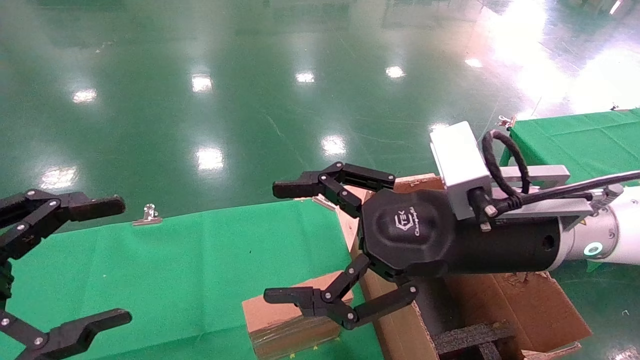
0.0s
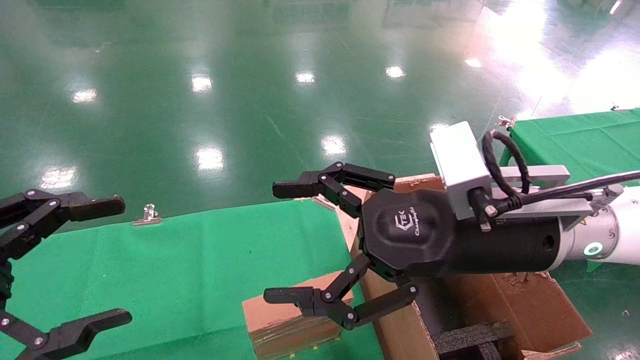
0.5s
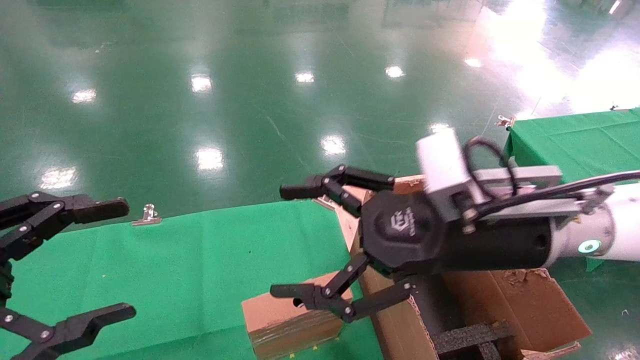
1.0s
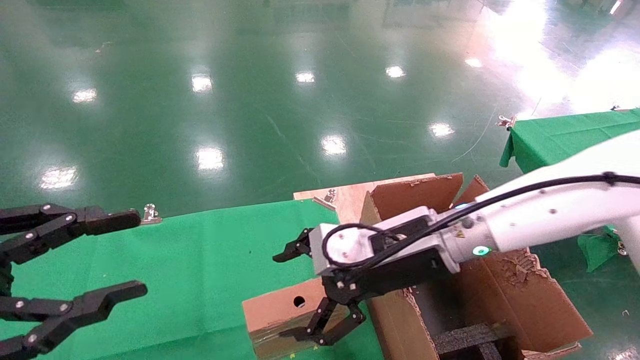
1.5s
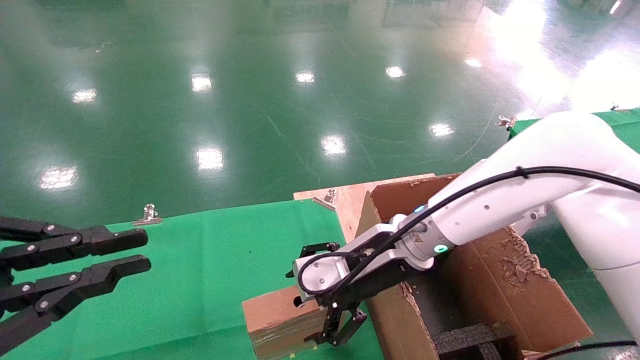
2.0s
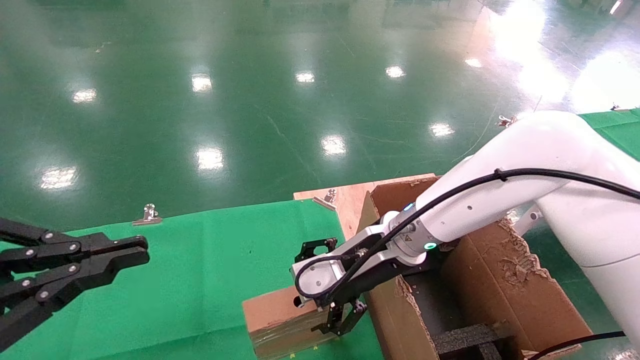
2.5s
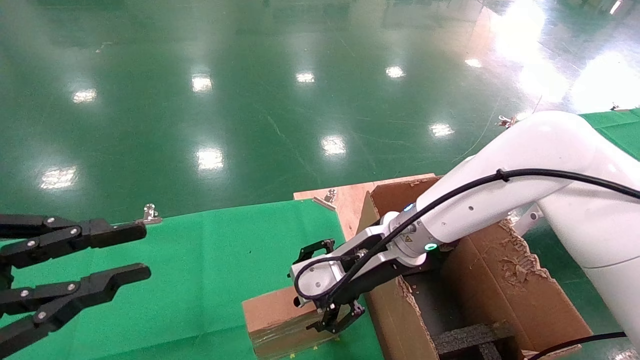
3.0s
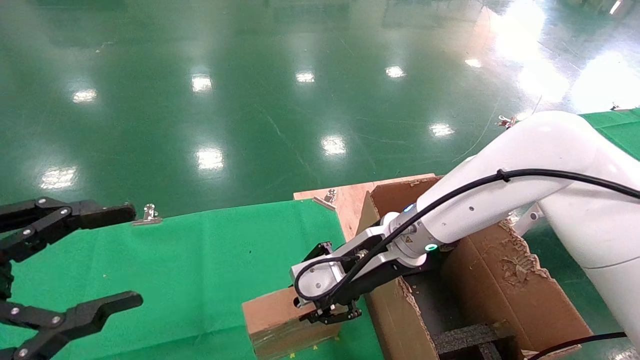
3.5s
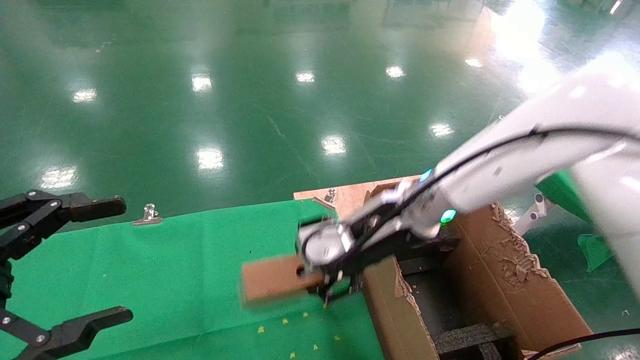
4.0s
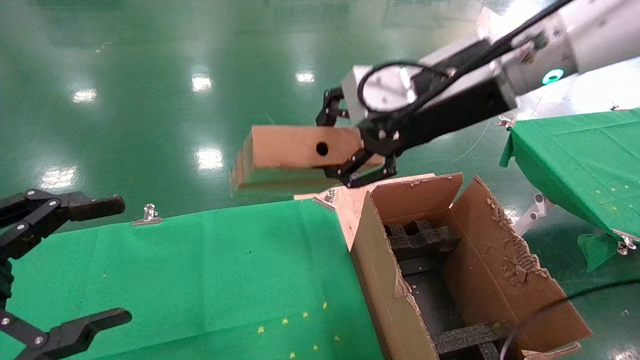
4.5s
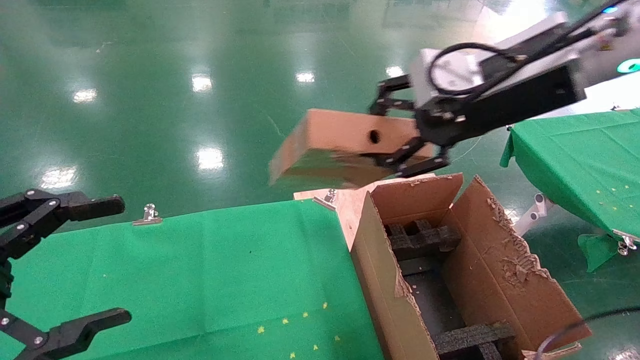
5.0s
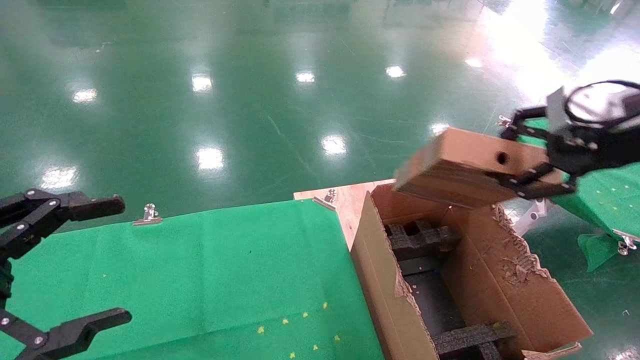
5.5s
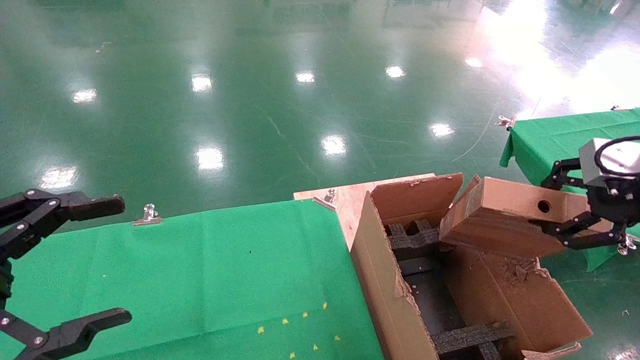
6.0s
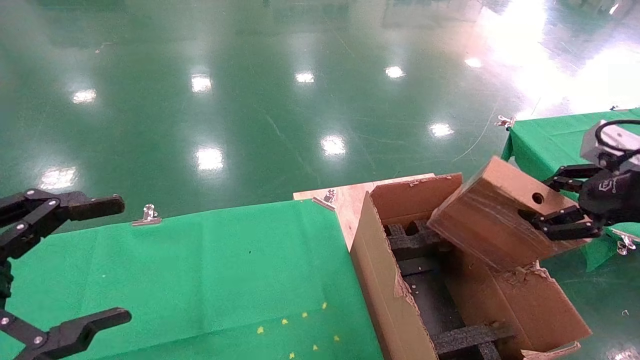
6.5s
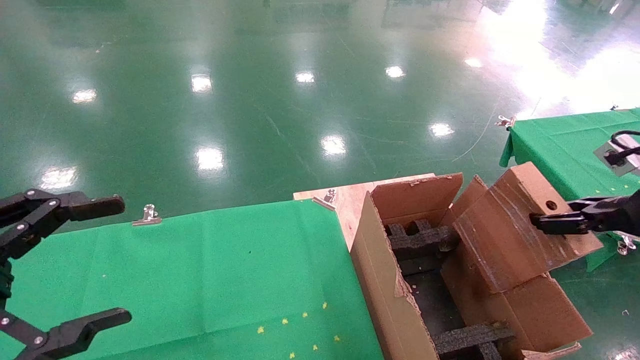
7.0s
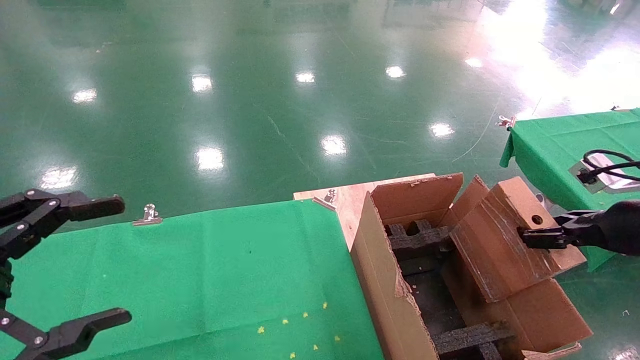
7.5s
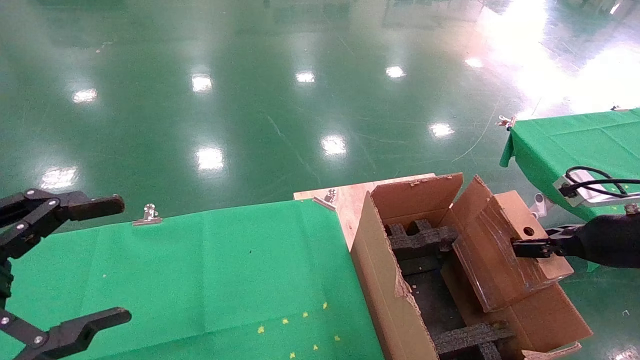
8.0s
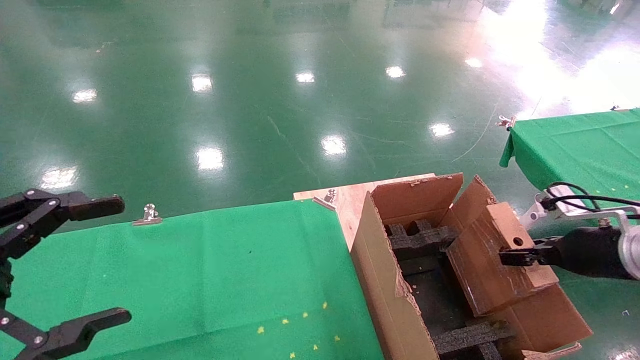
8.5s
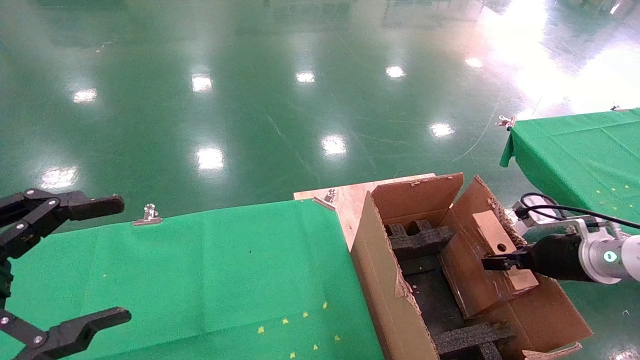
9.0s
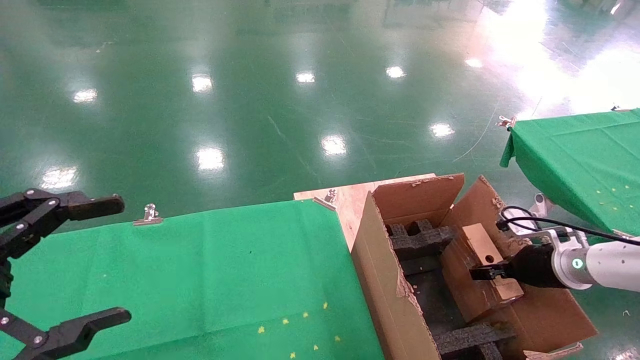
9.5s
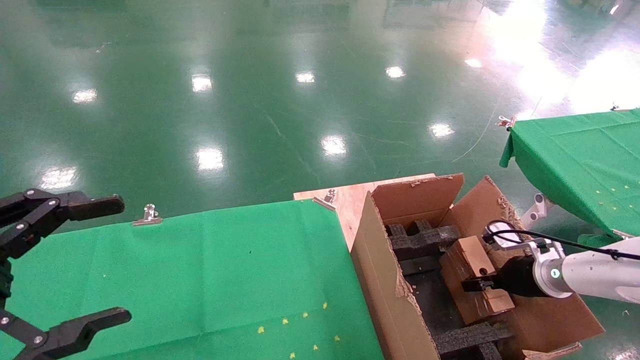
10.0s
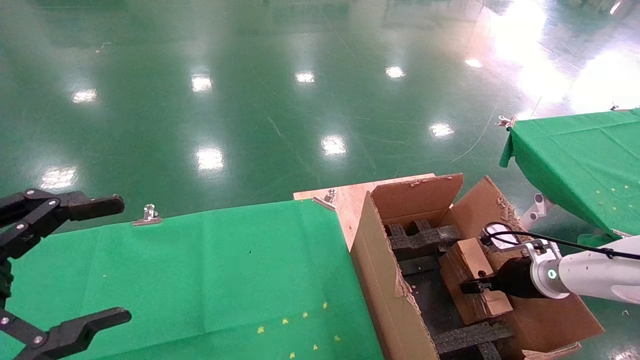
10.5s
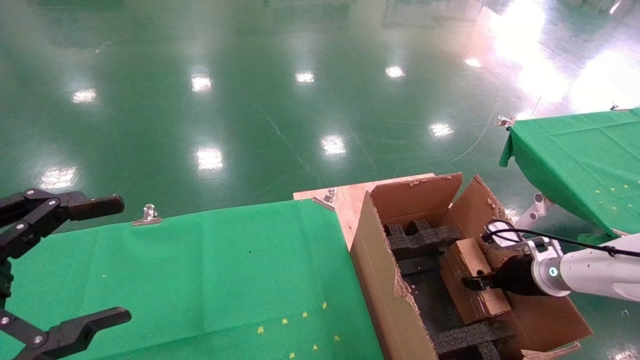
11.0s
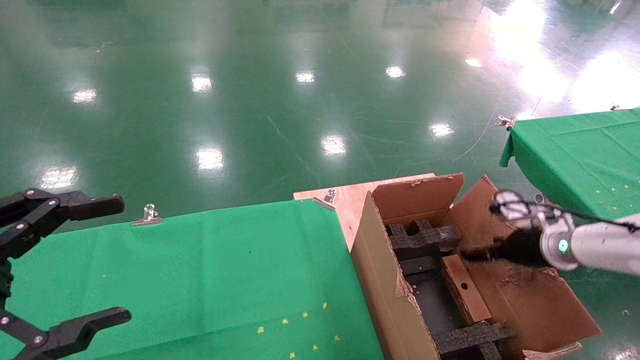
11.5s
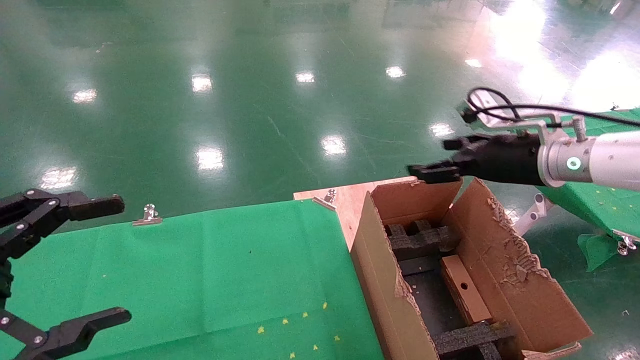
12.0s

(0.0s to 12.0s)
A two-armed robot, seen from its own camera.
Task of the whole recording: using a robotic arm to pick up a cardboard box and palace it the carton.
Step, 1.5s - 3.5s: Pick up the mouse and the power cord paper box.
0.0s - 2.0s: The right gripper heads forward, downward and to the left, covering about 15 cm; the left gripper closes its fingers.
2.0s - 4.0s: The right gripper goes some 5 cm upward, and closes up. Meanwhile the left gripper opens up.
4.0s - 6.0s: The right gripper goes some 30 cm to the right and backward.
6.0s - 8.0s: The right gripper goes approximately 15 cm downward.
8.0s - 10.0s: The right gripper shifts approximately 20 cm downward and forward.
10.0s - 12.0s: The right gripper goes roughly 25 cm upward and to the left, and opens up.

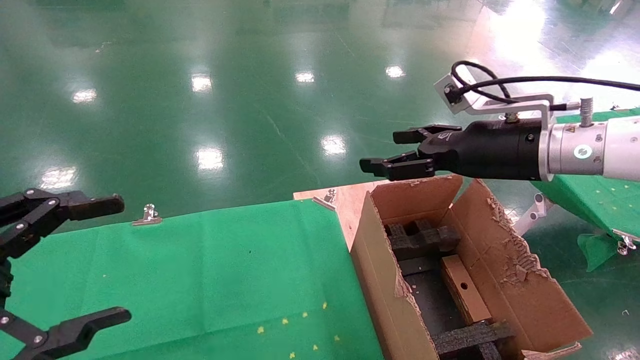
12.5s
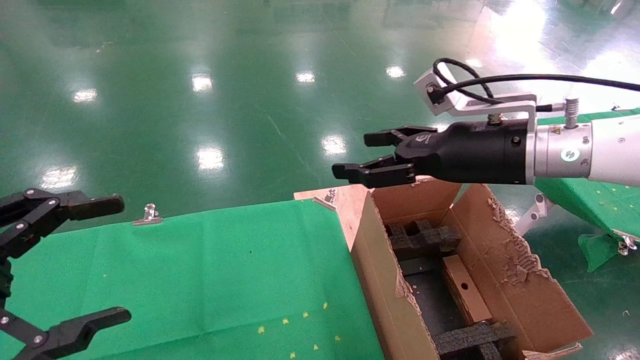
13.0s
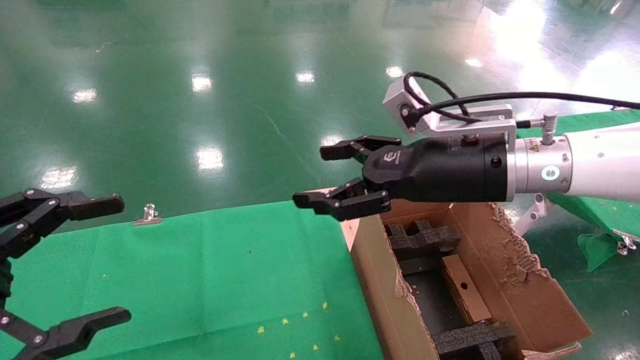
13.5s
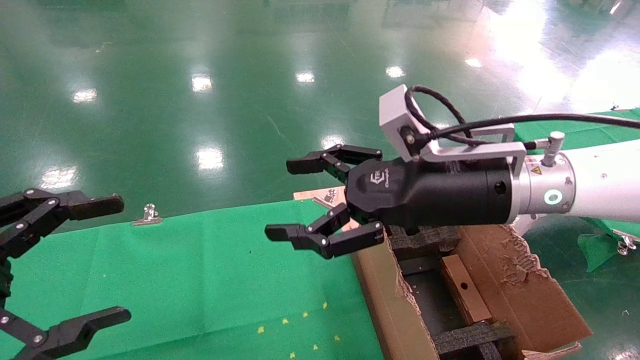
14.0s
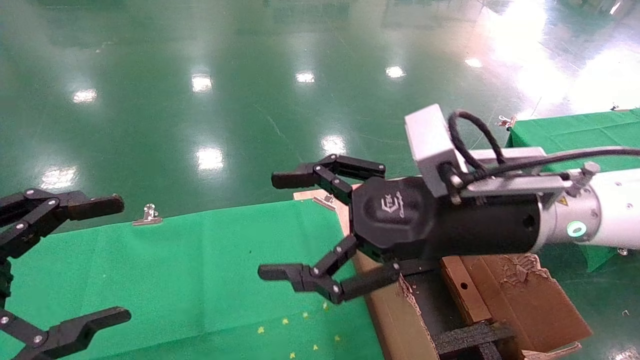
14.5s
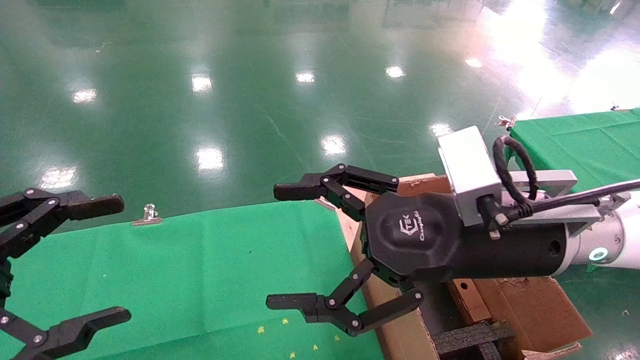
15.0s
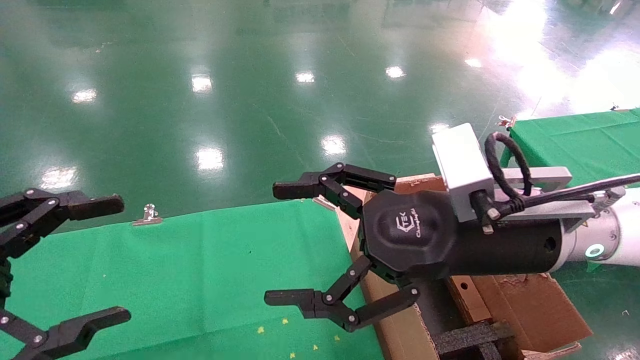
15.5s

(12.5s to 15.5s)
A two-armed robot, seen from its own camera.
Task of the whole recording: using a robotic arm to pick up a cardboard box and palace it the carton.
Step, 12.5s - 14.5s: Place the mouse and the power cord paper box into the container.
12.5s - 14.0s: The right gripper moves to the left, some 10 cm.
14.0s - 15.5s: The right gripper ends up about 5 cm from where it was.
